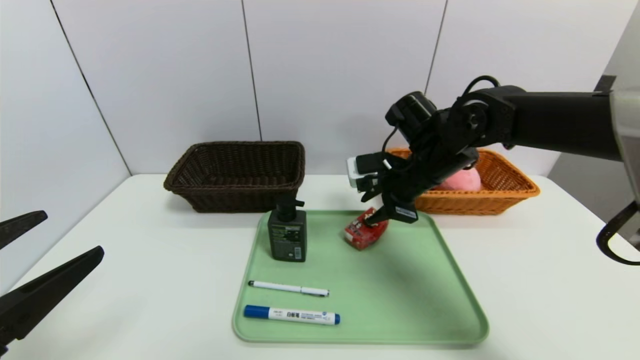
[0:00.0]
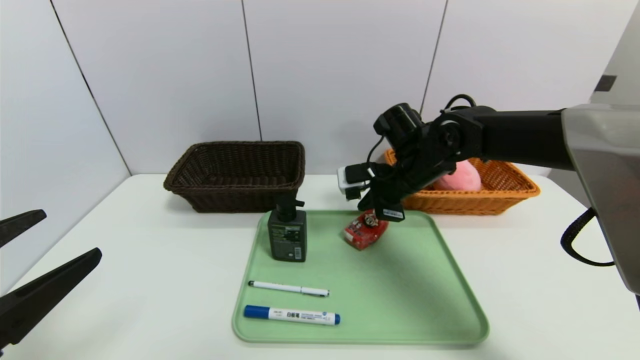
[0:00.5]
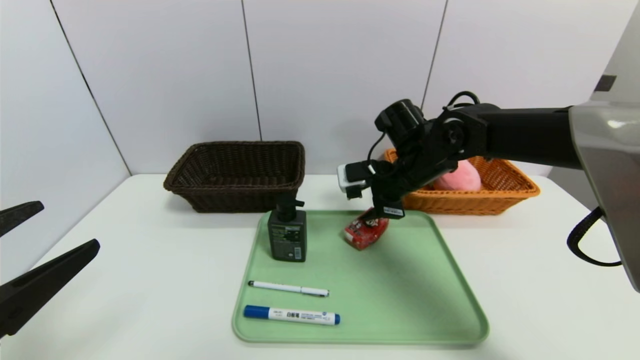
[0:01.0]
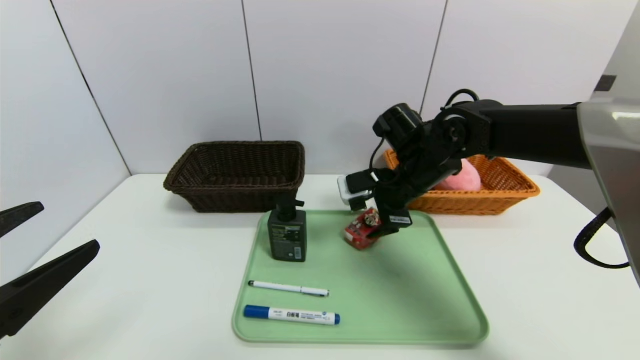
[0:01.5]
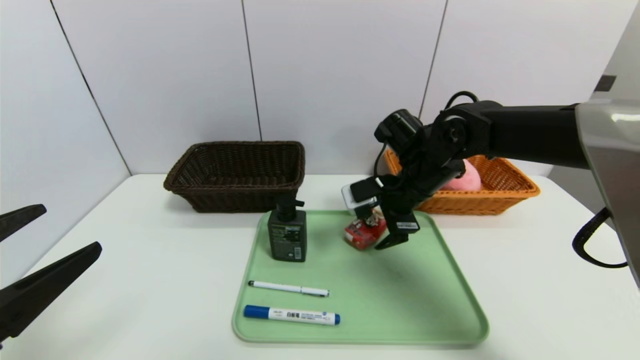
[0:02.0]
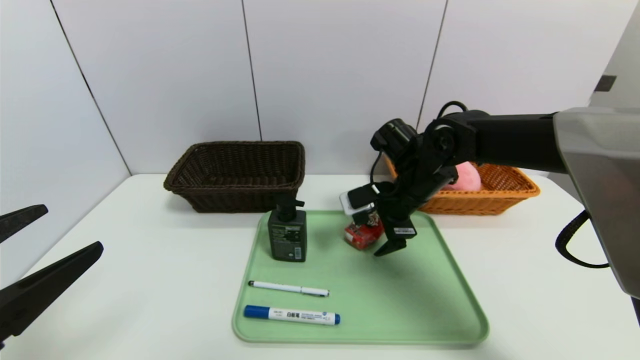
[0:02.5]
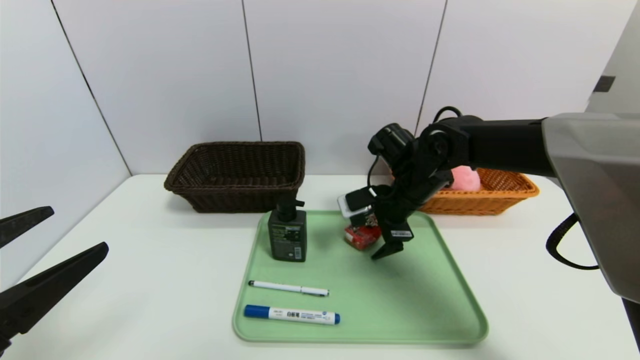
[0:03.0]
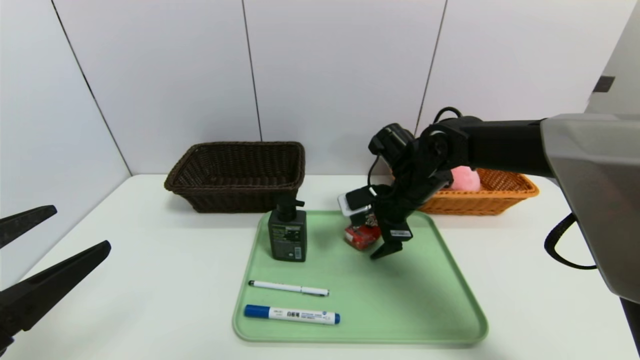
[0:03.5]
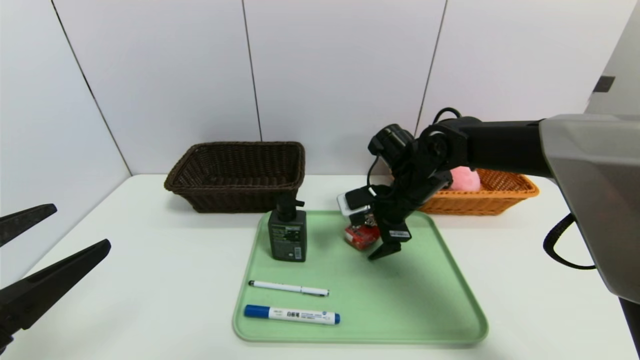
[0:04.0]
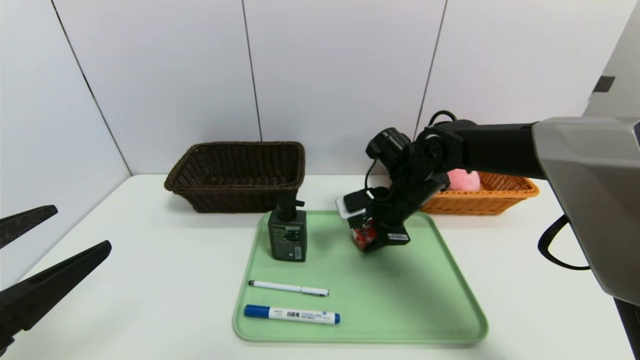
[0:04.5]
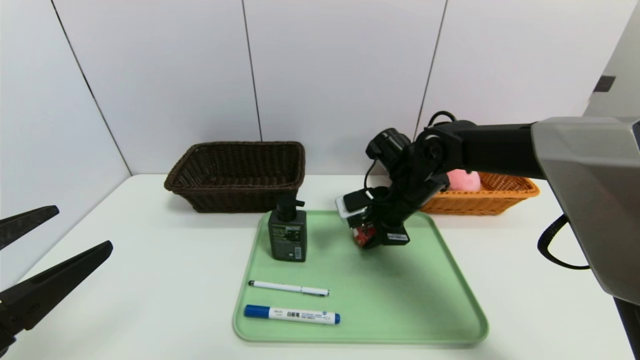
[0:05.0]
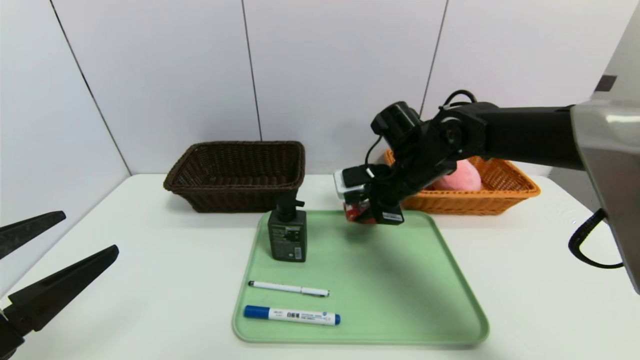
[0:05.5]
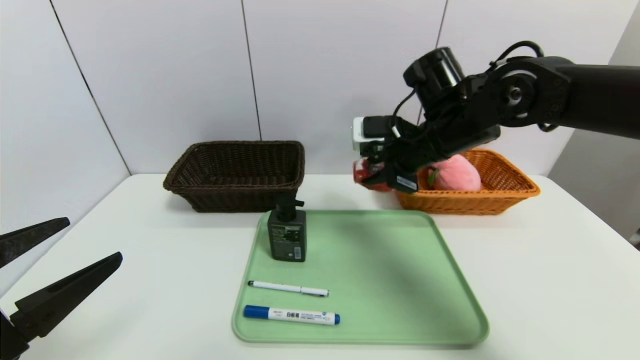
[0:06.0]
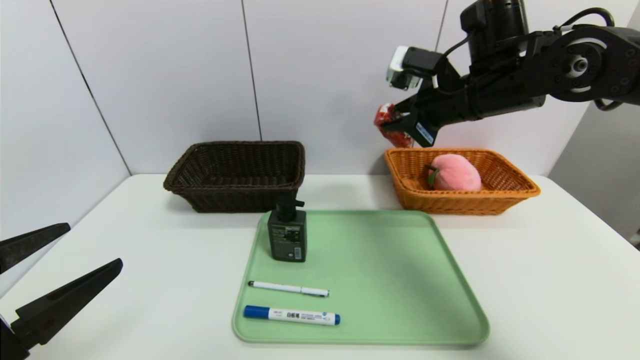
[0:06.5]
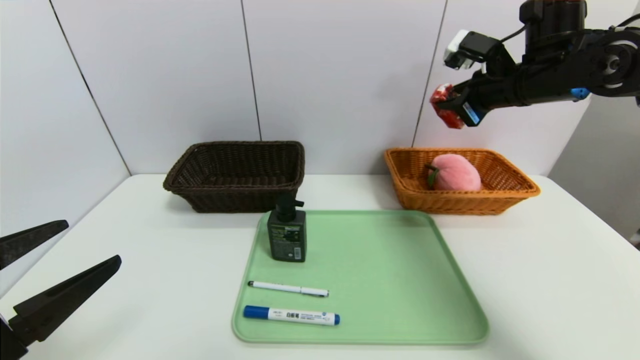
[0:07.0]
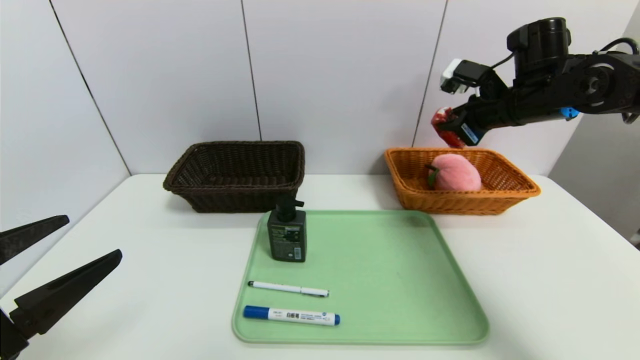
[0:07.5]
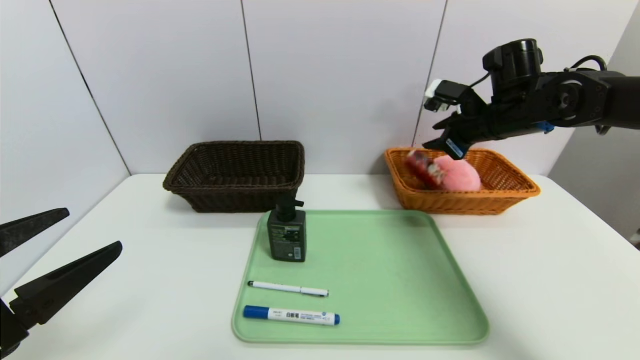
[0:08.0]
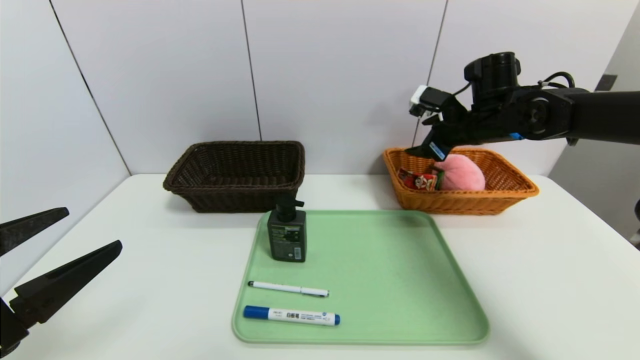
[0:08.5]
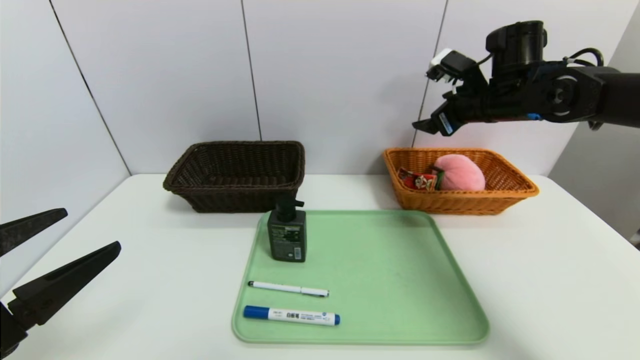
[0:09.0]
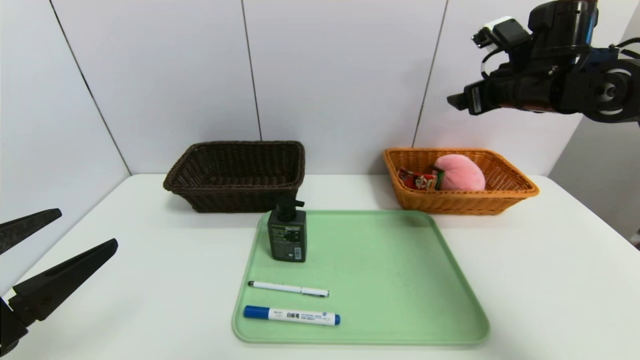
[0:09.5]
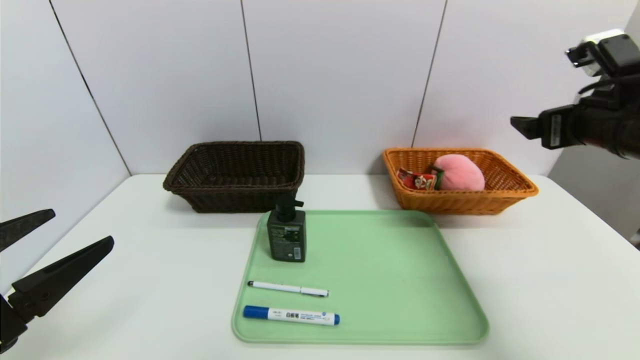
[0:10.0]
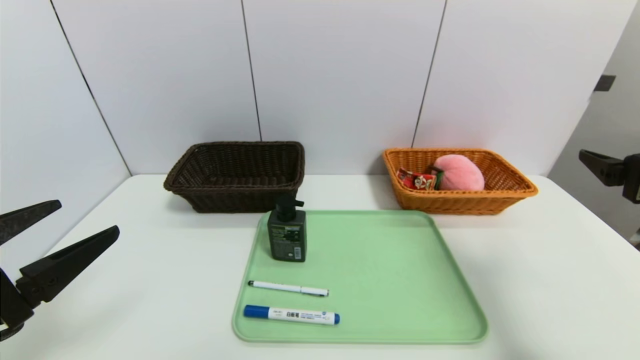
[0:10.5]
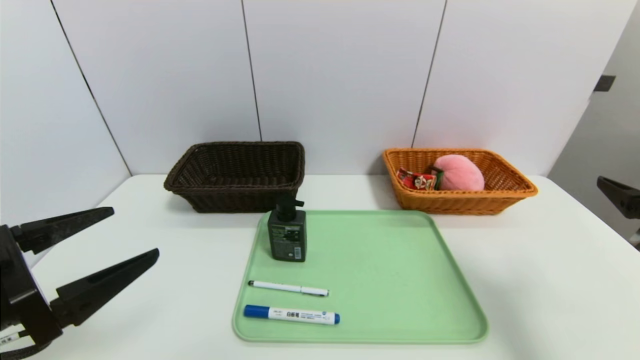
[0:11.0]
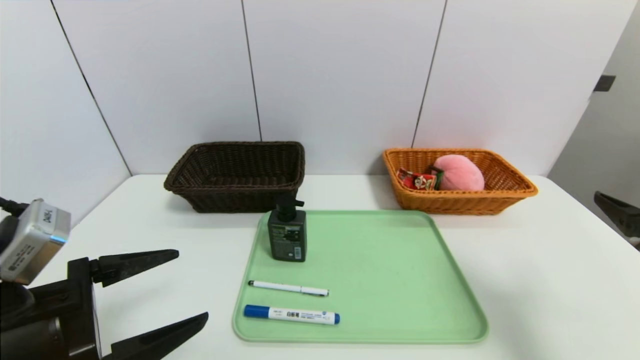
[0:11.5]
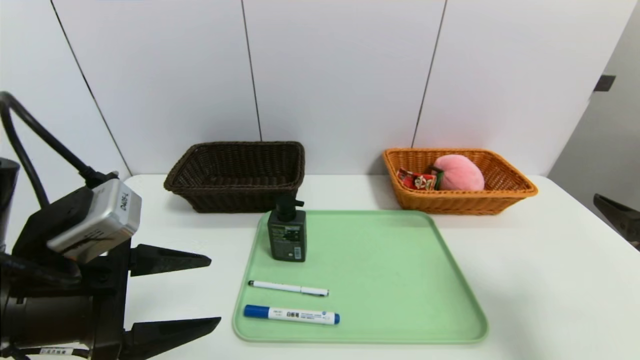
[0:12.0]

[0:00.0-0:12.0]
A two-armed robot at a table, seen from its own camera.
Task of the whole recording: place the food in the right basket with the right gripper, and place the non food items in the left basket with the left gripper.
Step, 0:00.0 to 0:08.5: Grasp the milk and put it in the right basket.
0:00.0 to 0:02.0: The right gripper opens.
0:02.0 to 0:04.0: There are only small adjustments of the grippers.
0:04.0 to 0:06.0: The right gripper shifts approximately 10 cm upward, and closes up.
0:06.0 to 0:08.0: The right gripper heads to the right and forward, covering some 10 cm.
0:08.0 to 0:10.0: The right gripper goes roughly 15 cm backward, and opens up.
0:10.0 to 0:12.0: The left gripper goes some 10 cm to the right and forward. The right gripper goes some 15 cm backward.

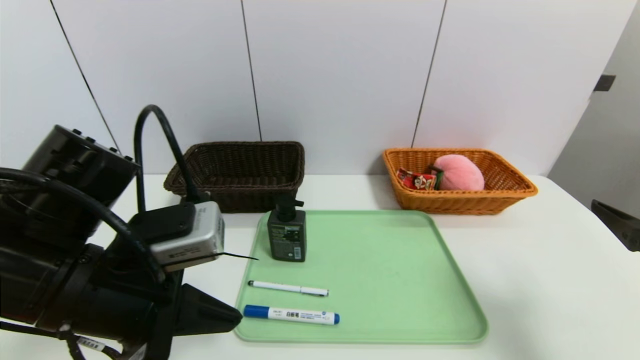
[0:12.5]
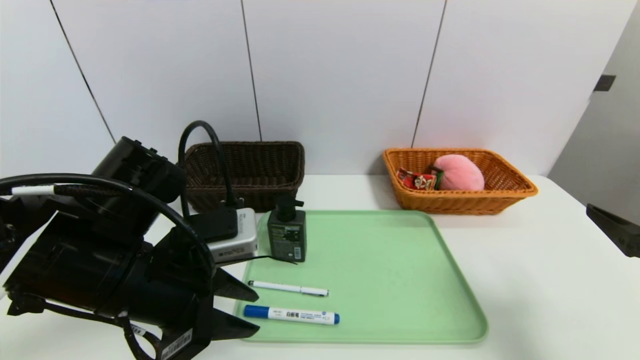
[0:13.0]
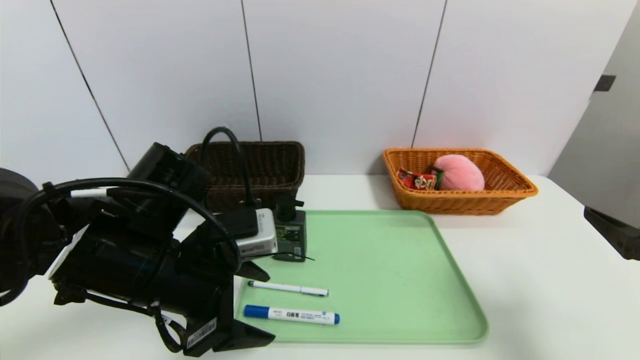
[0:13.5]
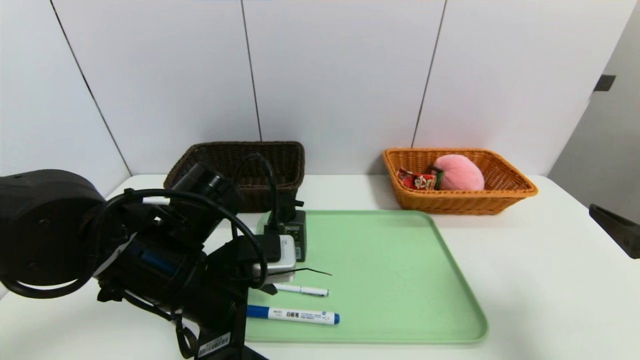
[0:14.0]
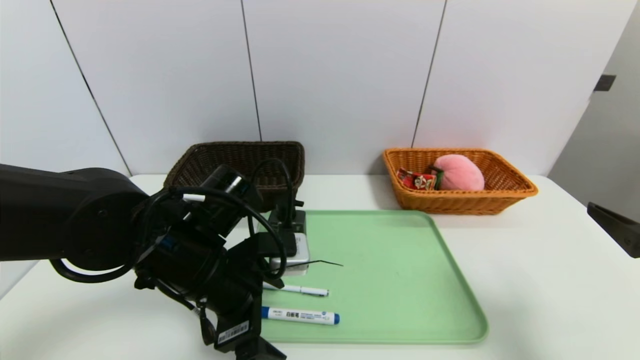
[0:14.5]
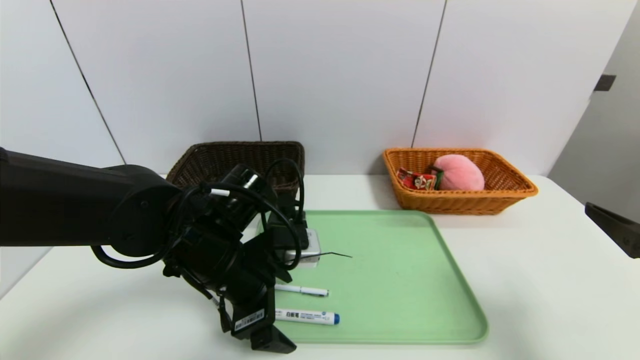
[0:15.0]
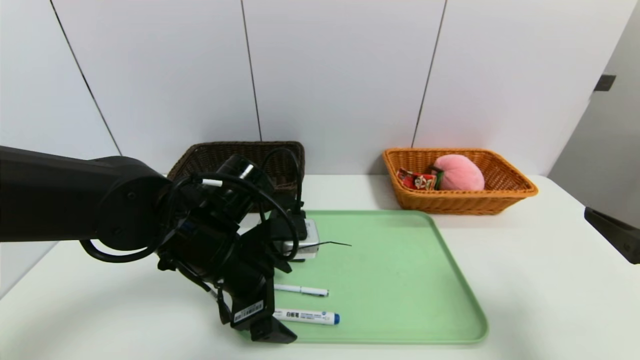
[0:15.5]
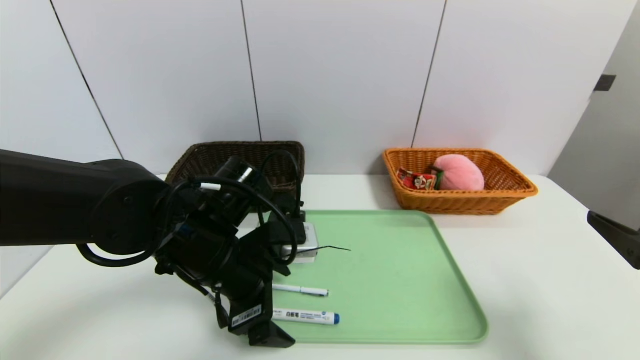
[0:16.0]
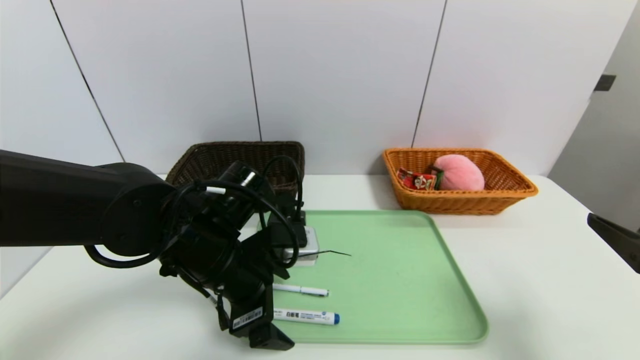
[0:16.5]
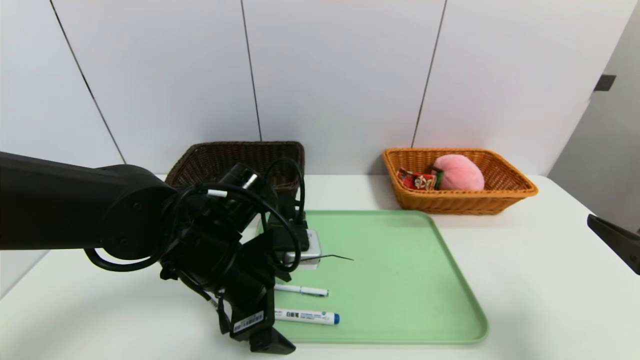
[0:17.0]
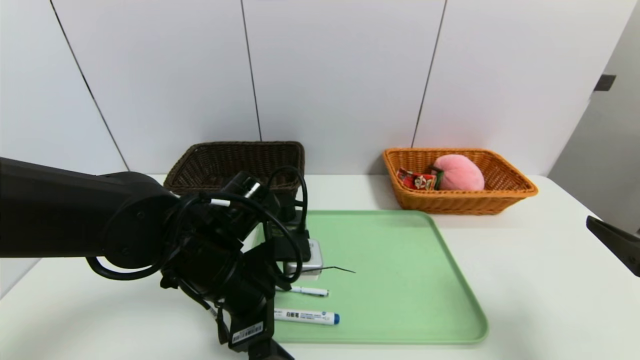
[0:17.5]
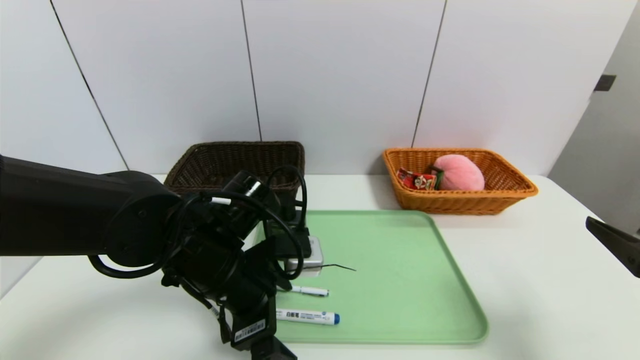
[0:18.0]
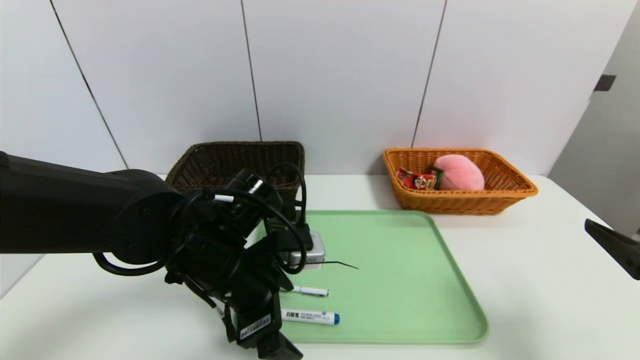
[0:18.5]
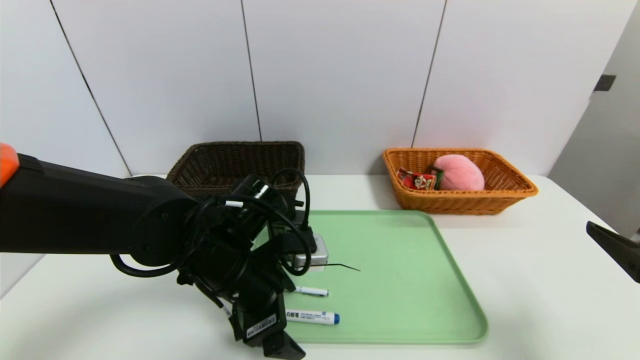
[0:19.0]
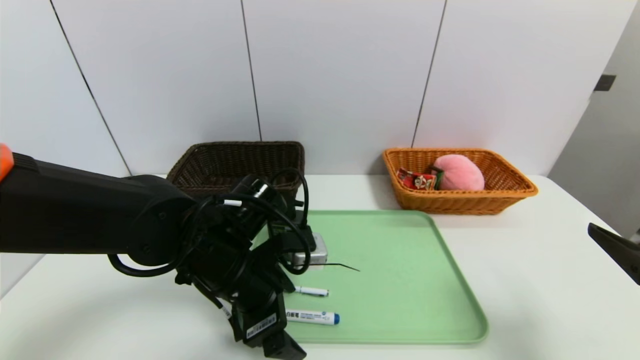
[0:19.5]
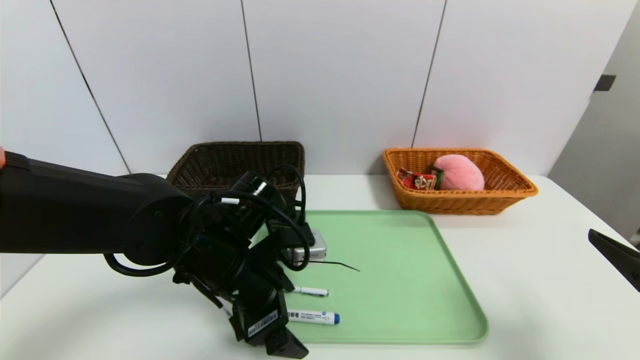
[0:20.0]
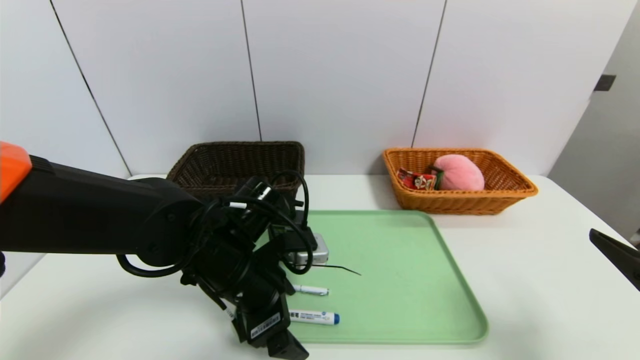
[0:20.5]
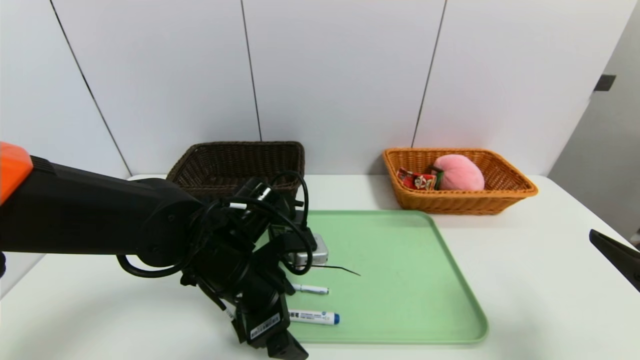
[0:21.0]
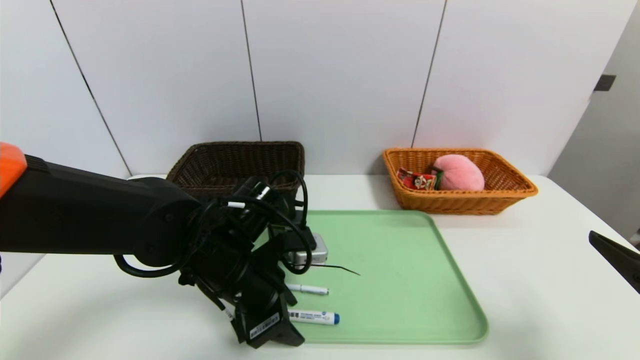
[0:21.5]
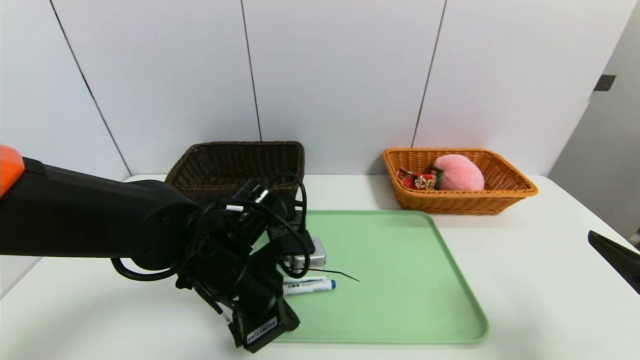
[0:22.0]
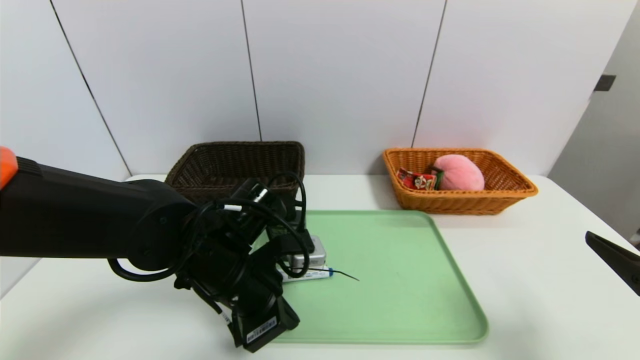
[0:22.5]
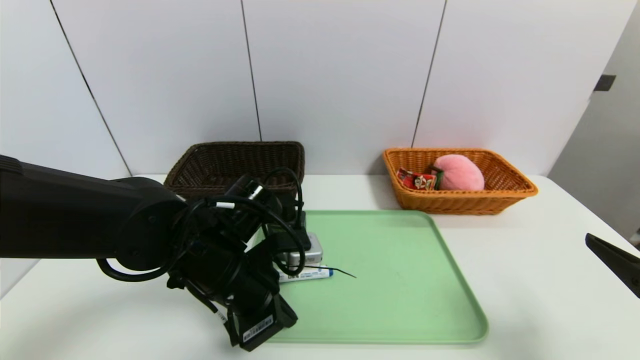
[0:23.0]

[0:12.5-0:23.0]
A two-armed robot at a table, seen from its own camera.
Task of the whole recording: place the food in the right basket with the right gripper, and place the non food items in the left basket with the left gripper.
0:12.5 to 0:14.5: The left gripper goes approximately 10 cm forward, downward and to the right, and opens its fingers.
0:14.5 to 0:19.0: The grippers move only a little.
0:19.0 to 0:21.0: Both grippers stay put.
0:21.0 to 0:23.0: The left gripper closes its fingers.
